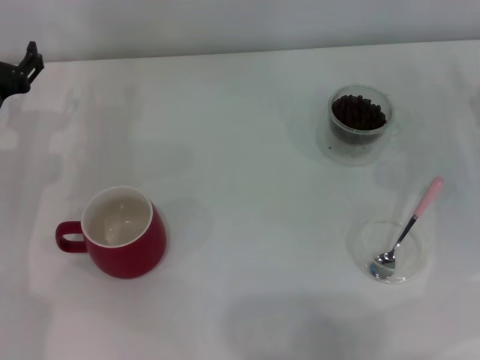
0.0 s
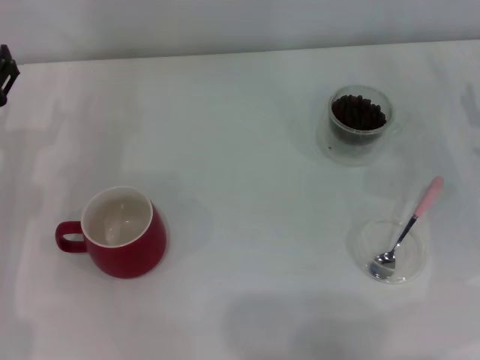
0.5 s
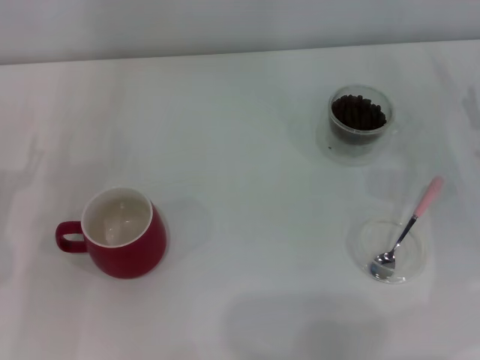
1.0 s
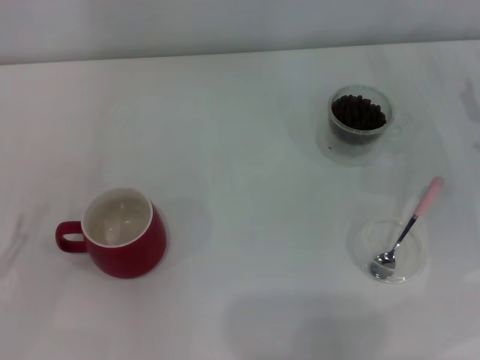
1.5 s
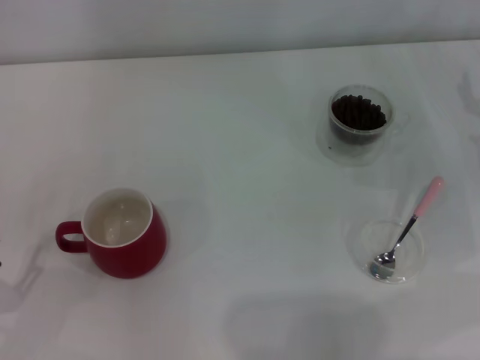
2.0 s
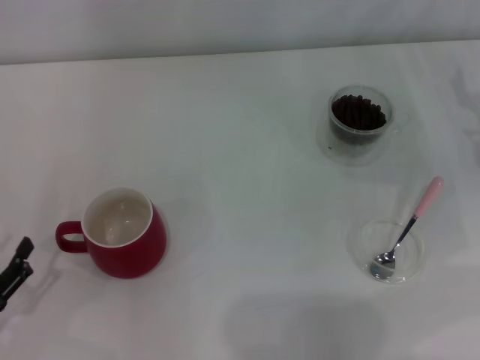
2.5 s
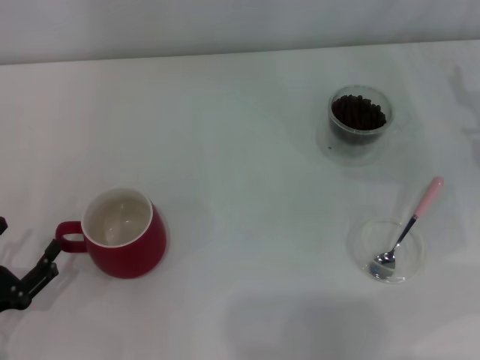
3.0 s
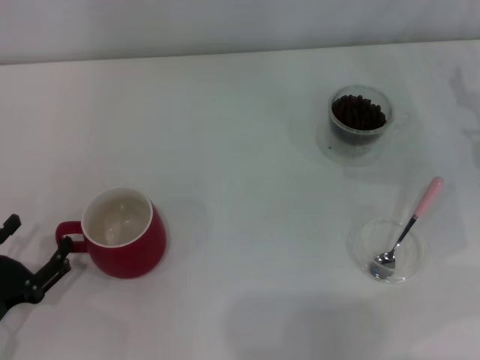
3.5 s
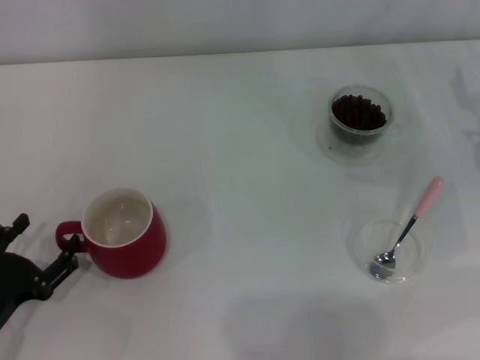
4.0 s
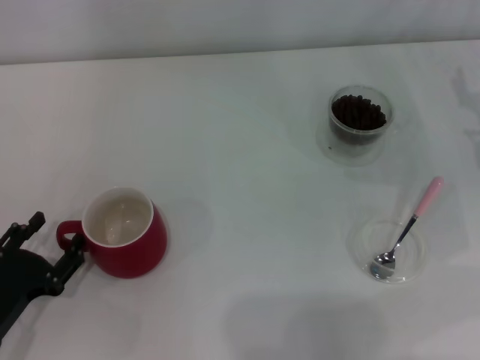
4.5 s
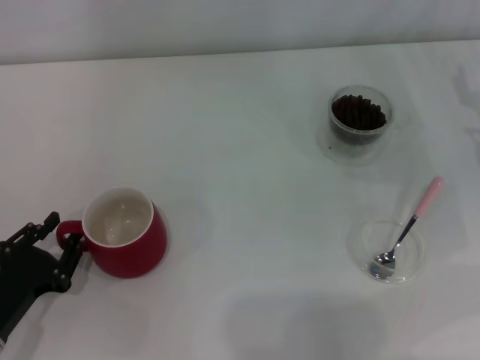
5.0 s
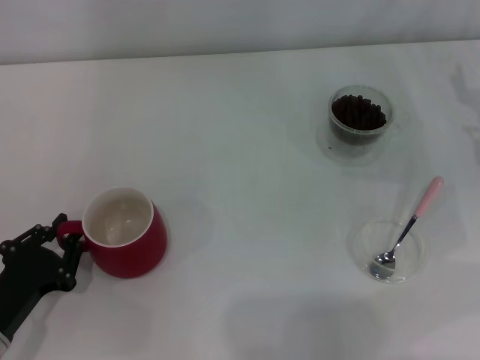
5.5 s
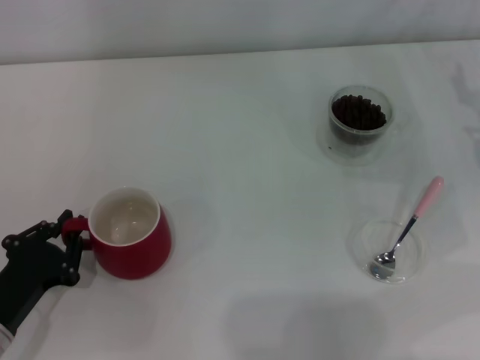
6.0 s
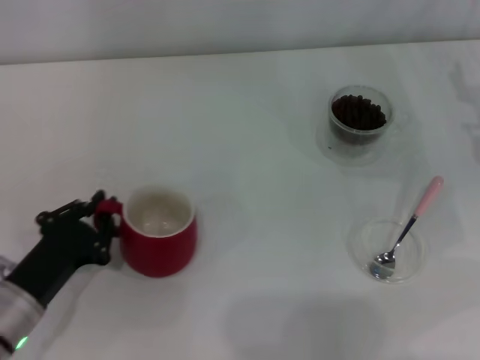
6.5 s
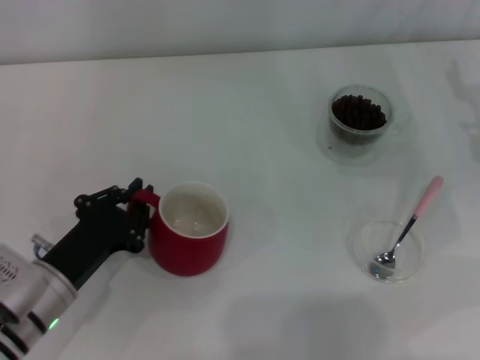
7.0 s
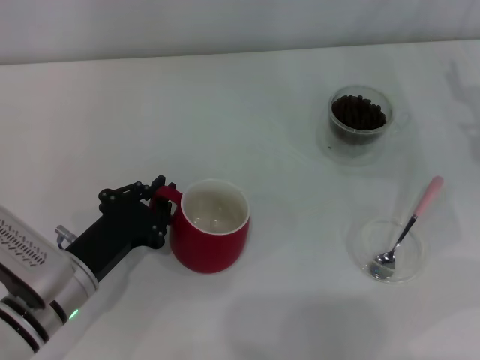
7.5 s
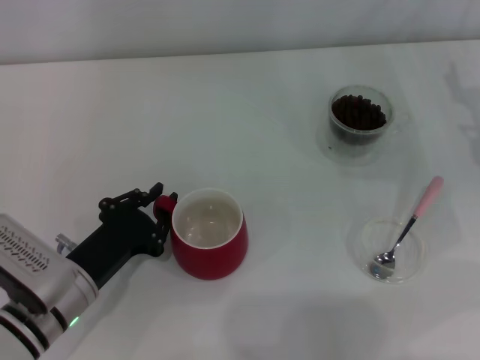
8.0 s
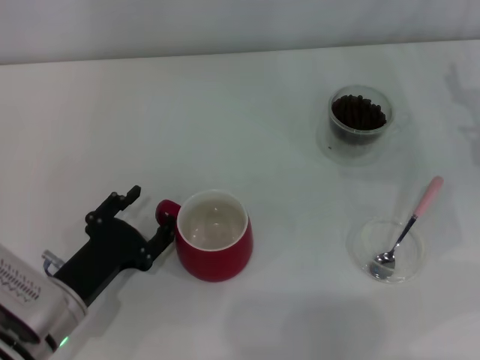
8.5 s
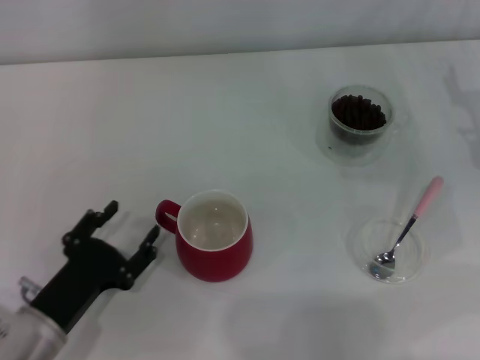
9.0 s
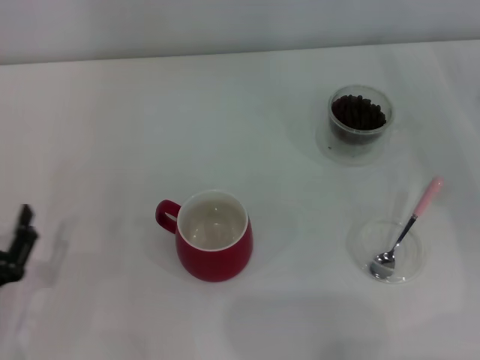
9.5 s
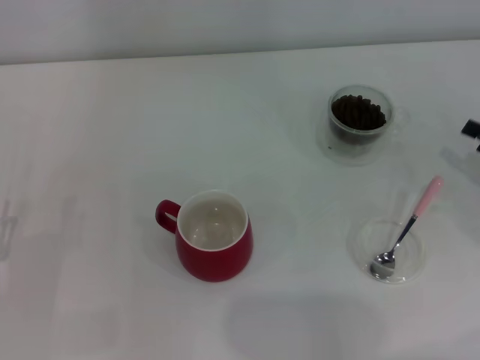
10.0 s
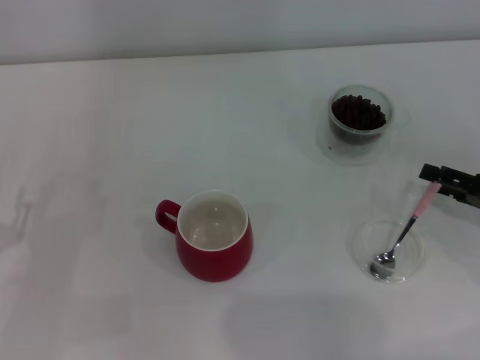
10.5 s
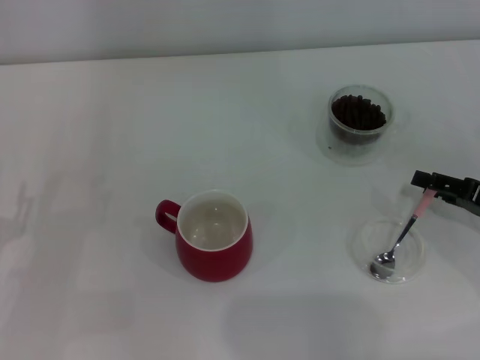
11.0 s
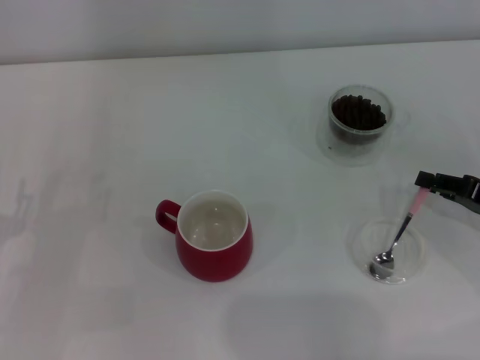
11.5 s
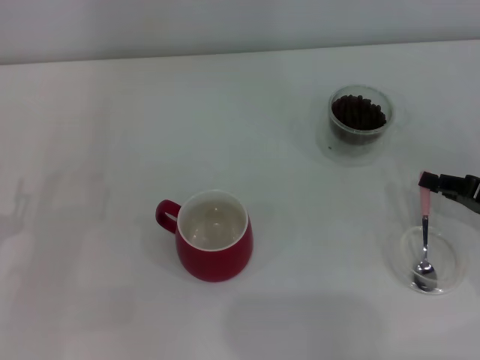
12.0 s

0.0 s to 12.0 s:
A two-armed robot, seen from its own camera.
Task of the whole recording: Use a pink spoon to take out the coffee beans from the glass and pour them into the red cup.
Step, 0.0 to 9.0 s: Move the cup to the center of view with the left gripper.
0.0 to 2.0 s: The left gripper goes some 25 cm backward.
2.0 to 4.0 s: The left gripper shifts by roughly 5 cm.
4.0 to 6.0 s: The left gripper closes.
6.0 to 8.0 s: The left gripper moves to the right, some 10 cm.
8.0 to 10.0 s: The right gripper goes some 10 cm backward and to the right, while the left gripper heads to the left and backward, covering roughly 15 cm, and opens.
10.0 to 12.0 s: The right gripper closes up.

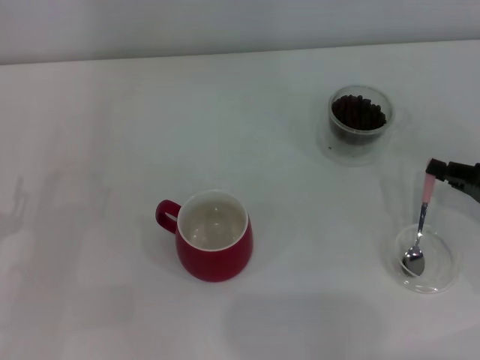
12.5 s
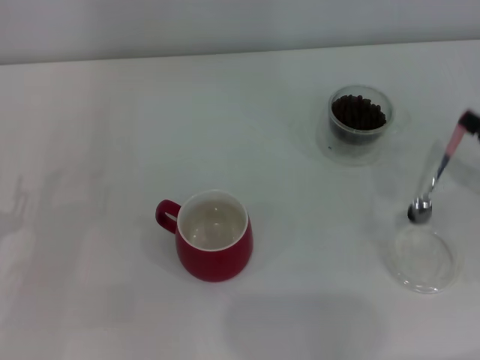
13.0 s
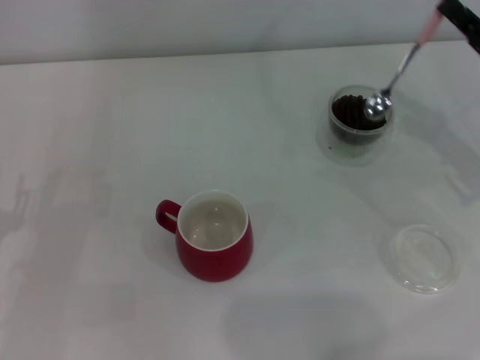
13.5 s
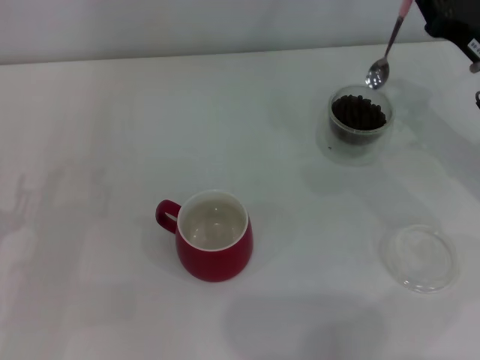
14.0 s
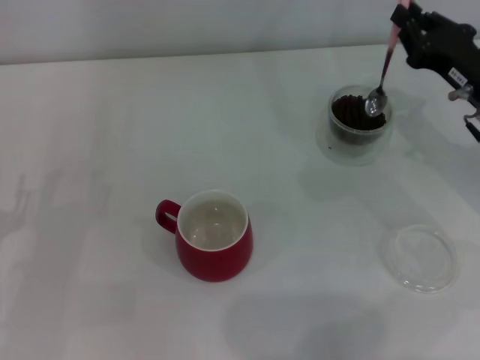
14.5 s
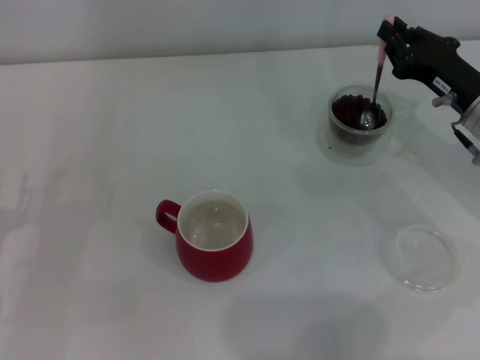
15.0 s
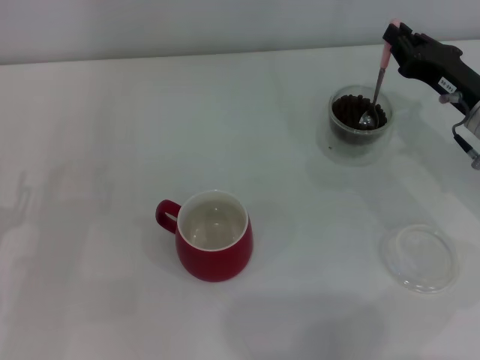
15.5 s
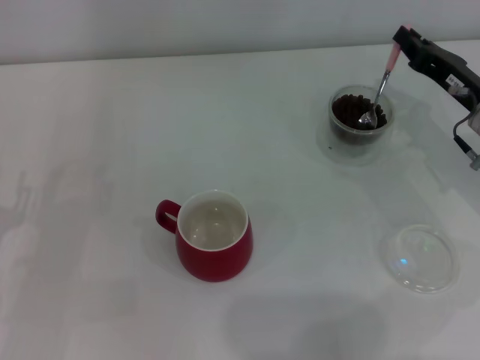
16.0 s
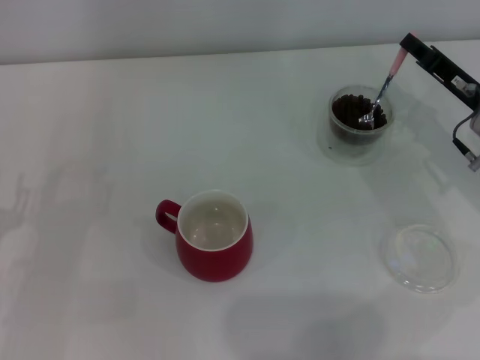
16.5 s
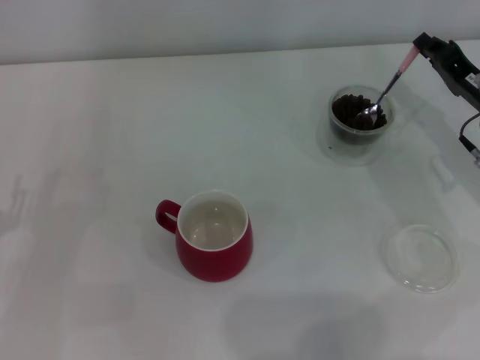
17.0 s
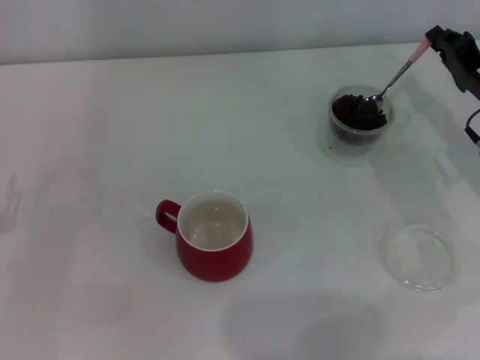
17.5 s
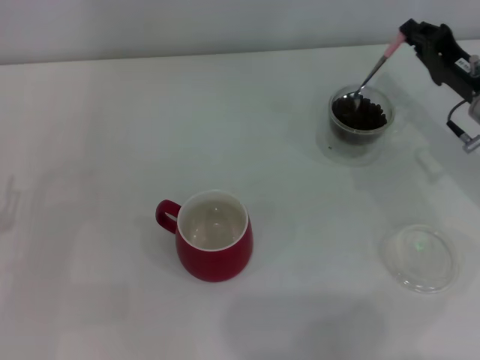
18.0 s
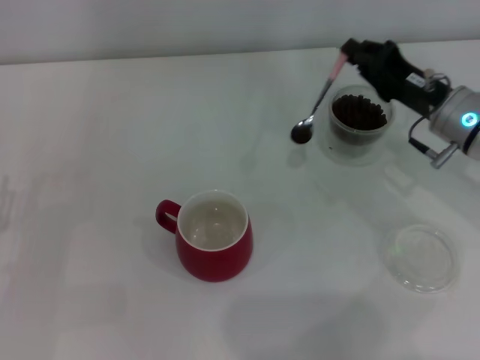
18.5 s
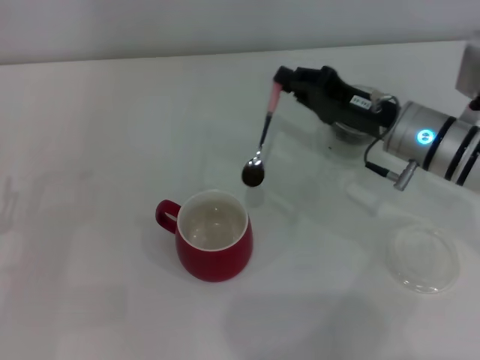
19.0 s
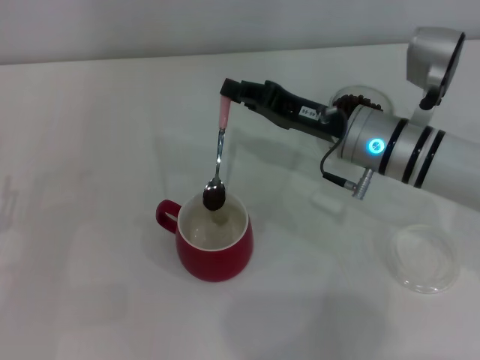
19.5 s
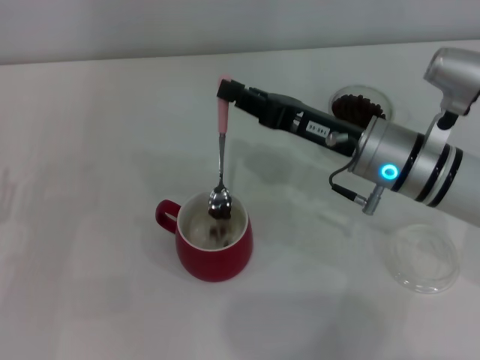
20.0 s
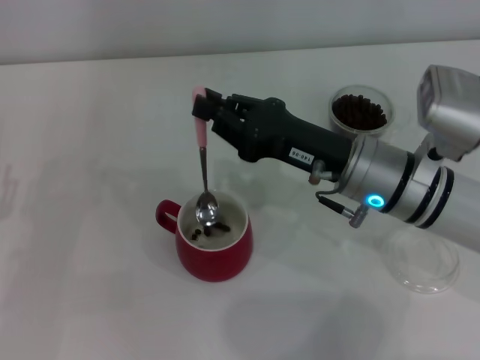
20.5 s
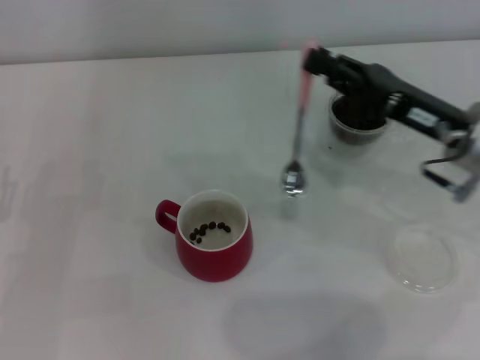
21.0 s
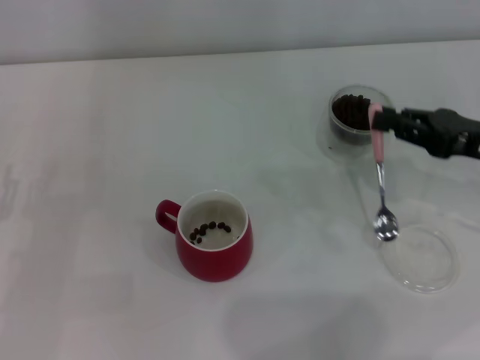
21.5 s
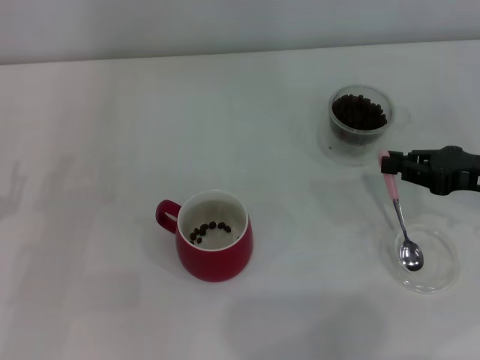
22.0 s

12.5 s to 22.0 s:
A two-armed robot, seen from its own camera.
Task of the whole recording: Use a pink spoon to take out the coffee beans from the glass and pour them into the red cup.
Step, 13.0 to 20.5 s: Scoop a spoonful of beans into the cup with the right gripper.
12.5 to 14.5 s: The right gripper goes about 10 cm forward and to the left.
18.0 to 20.0 s: The right gripper heads to the left, covering some 15 cm.
20.0 to 22.0 s: The right gripper goes some 15 cm to the right.

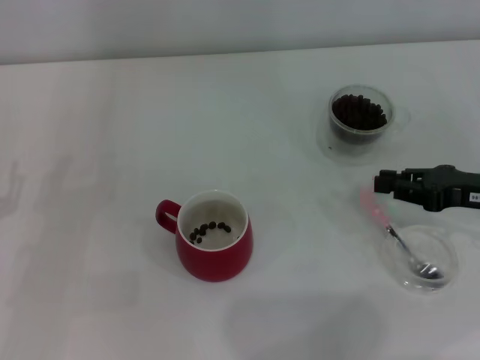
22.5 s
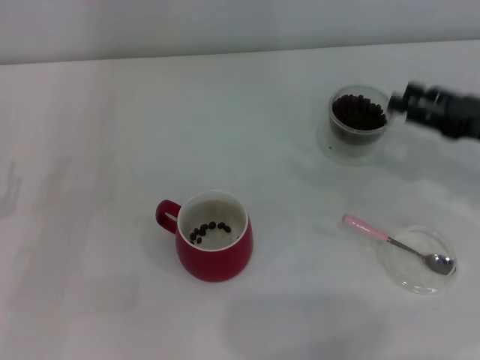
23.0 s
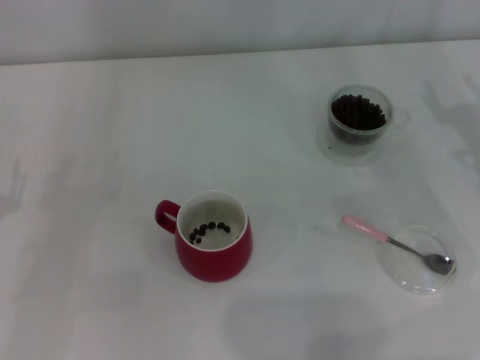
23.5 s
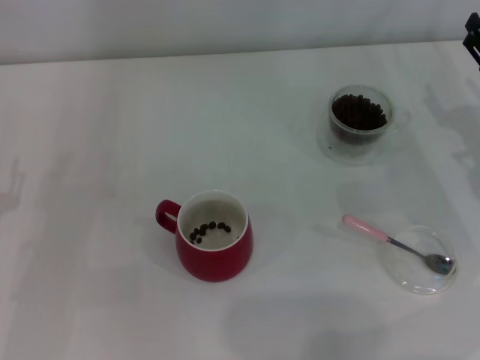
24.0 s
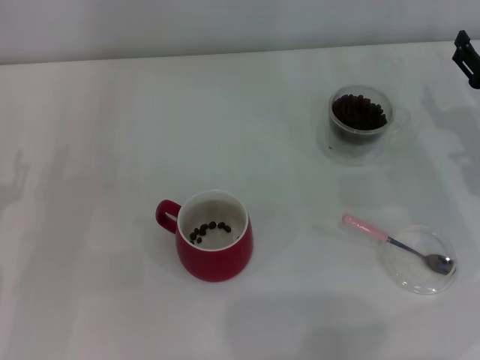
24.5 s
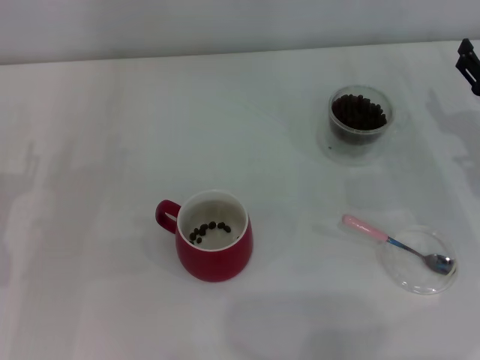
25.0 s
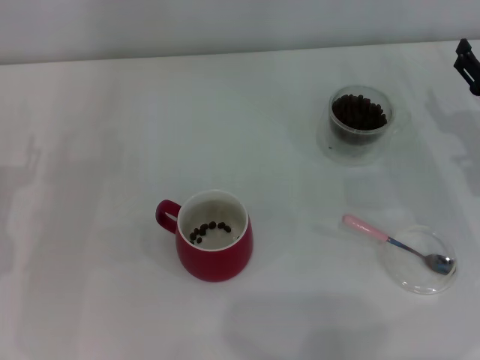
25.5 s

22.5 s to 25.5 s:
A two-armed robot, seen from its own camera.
Task of the whole recording: Use a pink spoon to take out the coffee beans from the glass and pour them into the red cup.
22.5 to 24.0 s: The right gripper opens its fingers.
